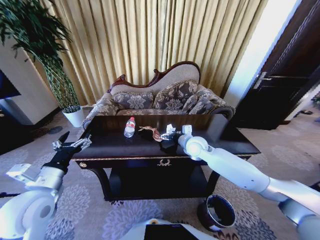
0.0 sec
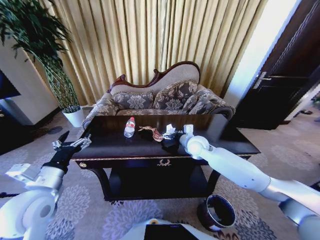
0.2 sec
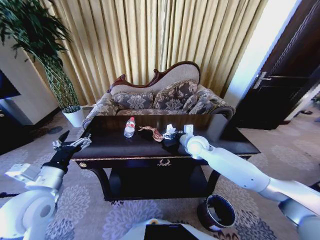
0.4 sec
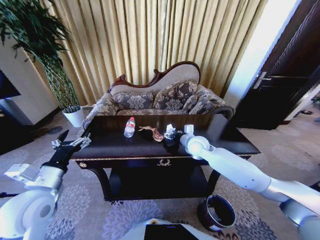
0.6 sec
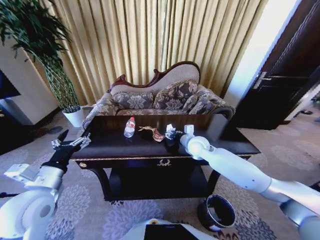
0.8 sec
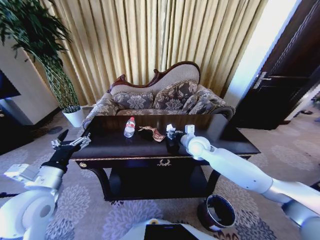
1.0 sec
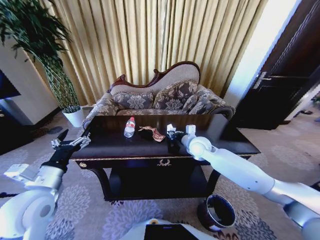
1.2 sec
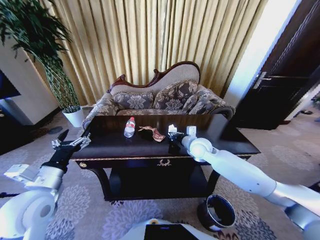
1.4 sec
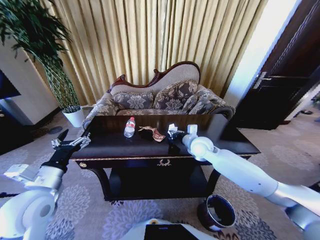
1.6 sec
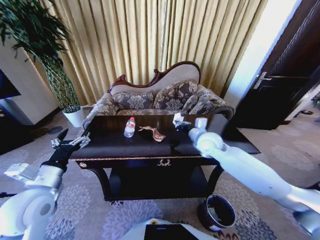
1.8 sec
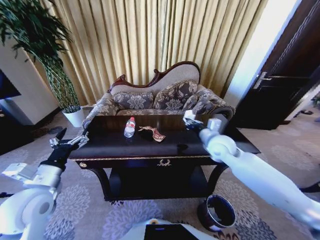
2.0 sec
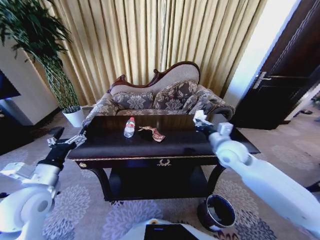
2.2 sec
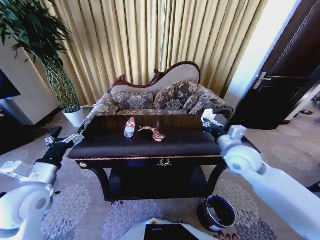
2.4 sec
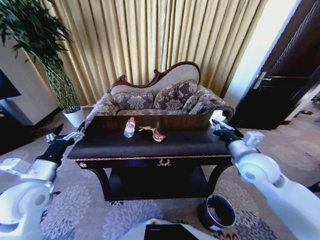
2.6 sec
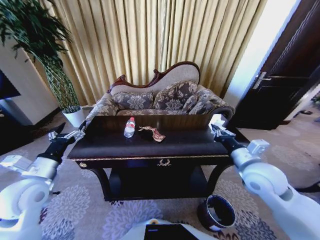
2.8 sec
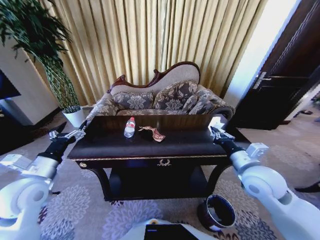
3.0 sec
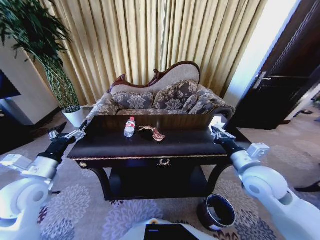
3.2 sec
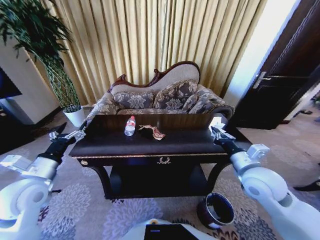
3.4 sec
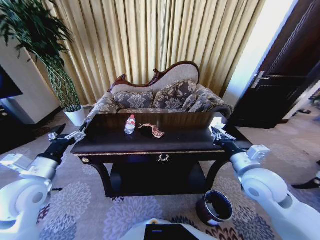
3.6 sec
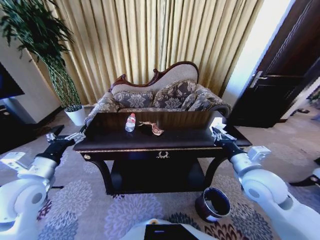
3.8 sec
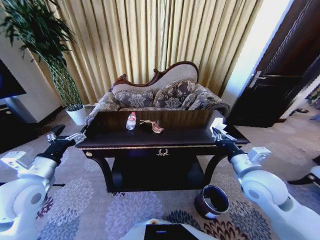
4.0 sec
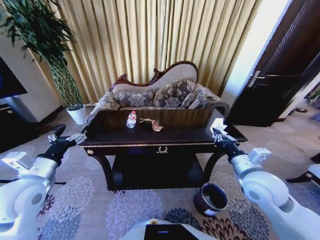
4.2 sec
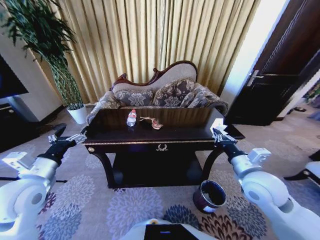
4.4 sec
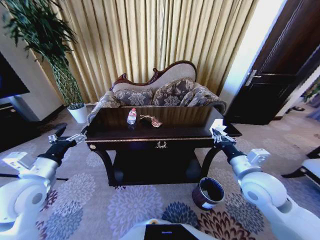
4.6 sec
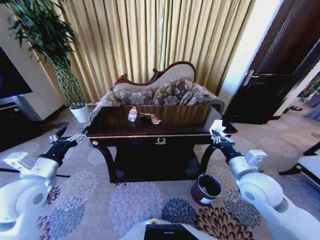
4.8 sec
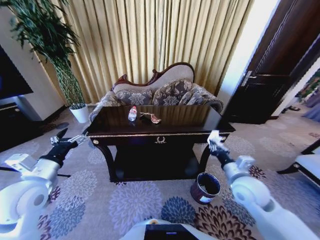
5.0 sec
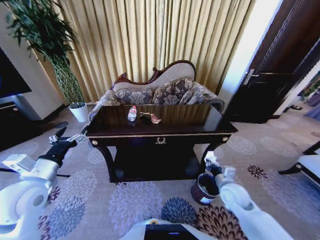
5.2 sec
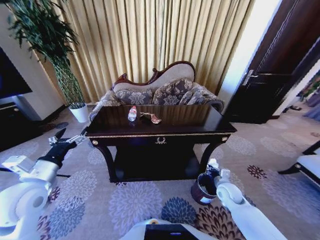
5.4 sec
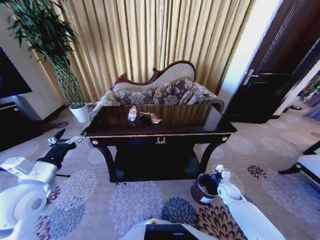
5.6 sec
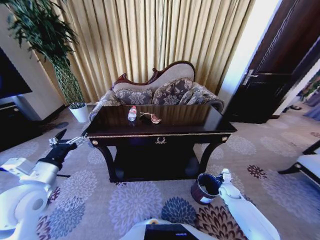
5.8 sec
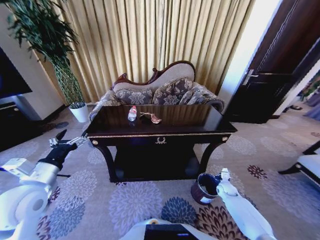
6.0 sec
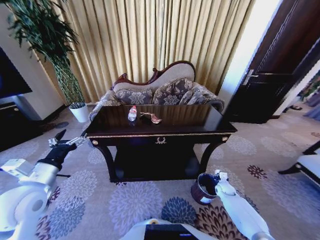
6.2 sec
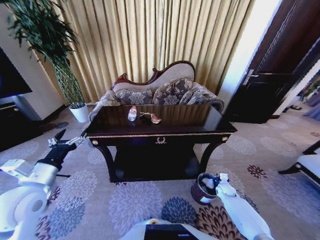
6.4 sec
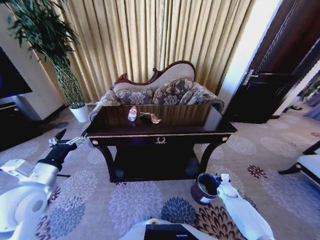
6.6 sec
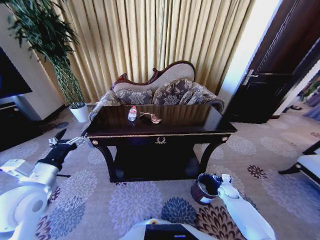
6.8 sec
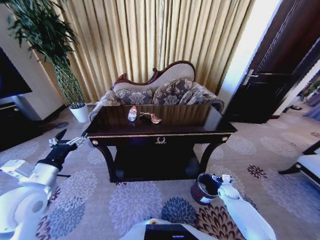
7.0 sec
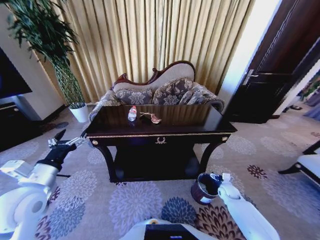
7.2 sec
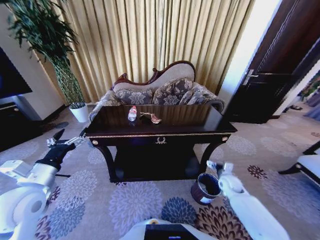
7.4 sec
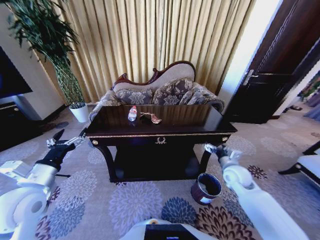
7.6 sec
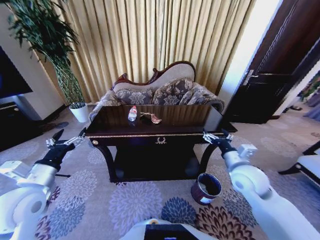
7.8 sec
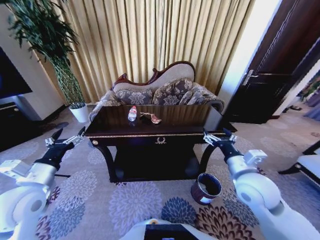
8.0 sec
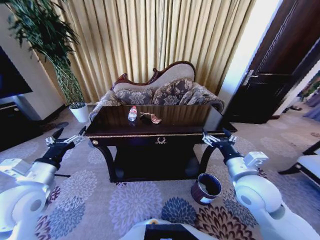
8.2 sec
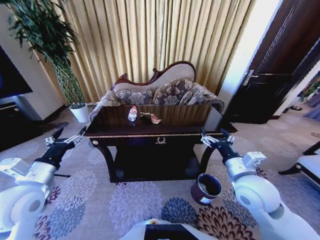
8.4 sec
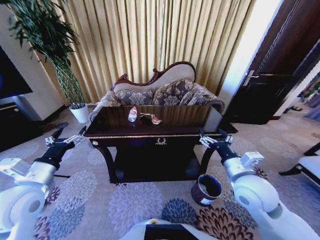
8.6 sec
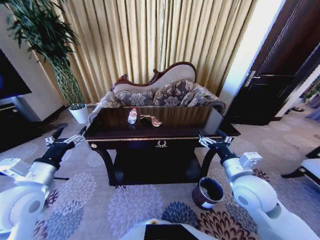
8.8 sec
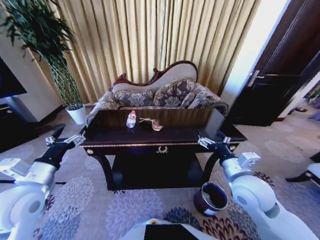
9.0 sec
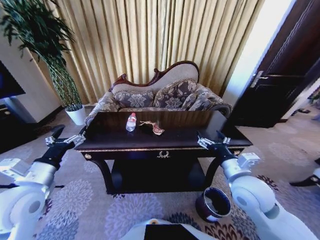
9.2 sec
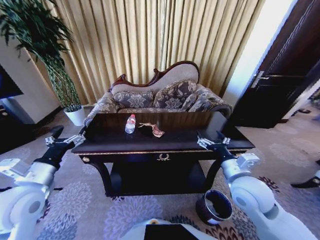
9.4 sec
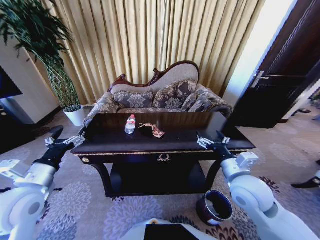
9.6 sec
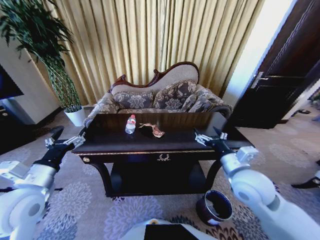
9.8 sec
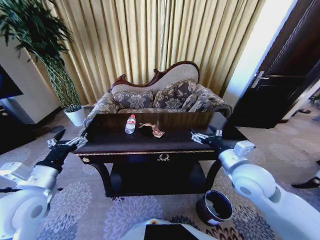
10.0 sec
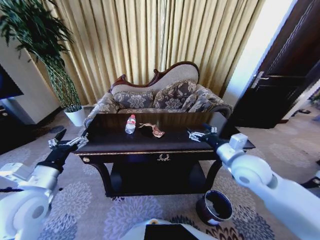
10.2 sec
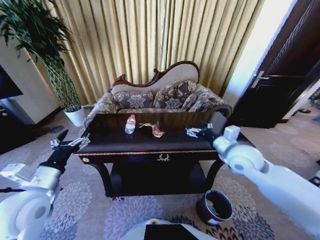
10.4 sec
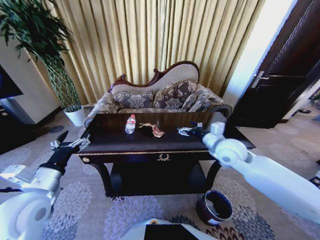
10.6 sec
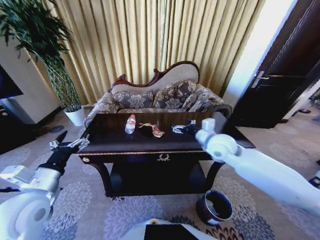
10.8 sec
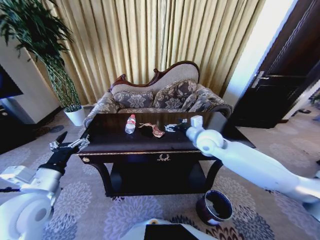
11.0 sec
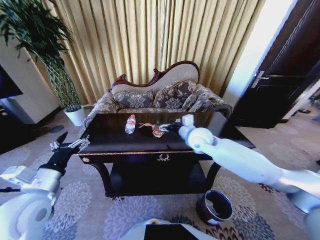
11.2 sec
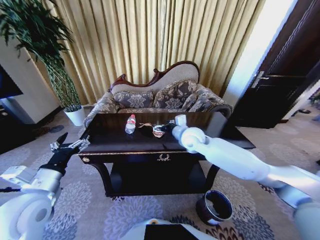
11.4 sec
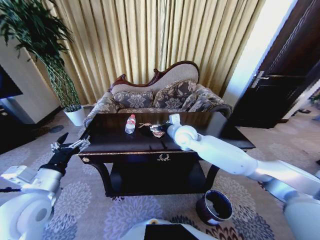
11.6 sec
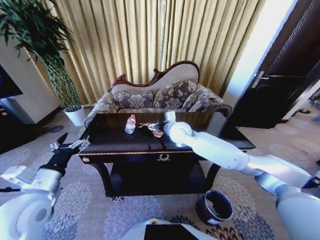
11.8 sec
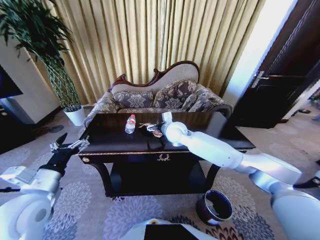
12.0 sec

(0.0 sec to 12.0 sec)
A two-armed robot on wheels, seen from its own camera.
Task of the whole recording: Move to the front of the table and place the trash on the table into the trash bin.
0.0 sec - 1.6 sec: The right gripper closes its fingers.
1.6 sec - 3.0 sec: The left gripper changes place by roughly 5 cm; the right gripper goes approximately 20 cm backward and to the right.
4.4 sec - 6.0 sec: The right gripper travels downward by some 35 cm.
6.0 sec - 7.6 sec: The right gripper heads upward, covering about 25 cm, and opens its fingers.
7.6 sec - 9.0 sec: The right gripper moves backward, upward and to the left, approximately 15 cm.
9.0 sec - 10.4 sec: The right gripper is displaced forward by roughly 10 cm.
10.4 sec - 12.0 sec: The right gripper travels to the left and forward by approximately 25 cm.

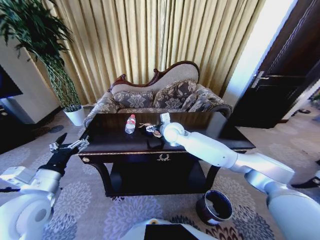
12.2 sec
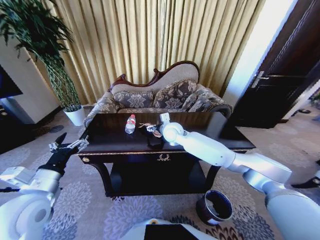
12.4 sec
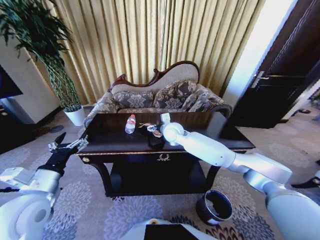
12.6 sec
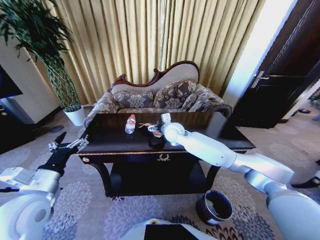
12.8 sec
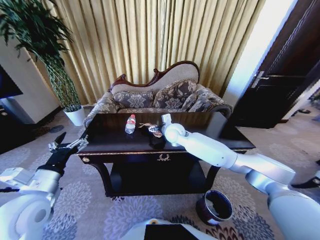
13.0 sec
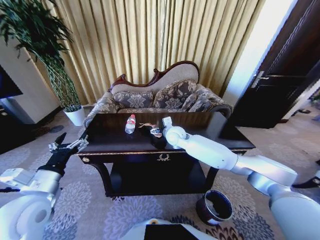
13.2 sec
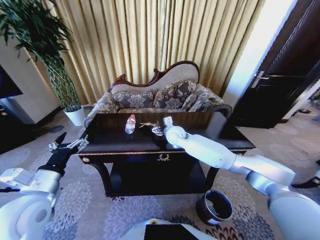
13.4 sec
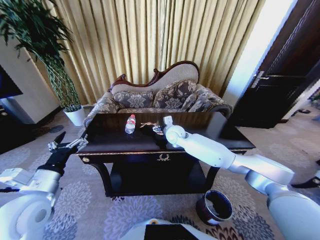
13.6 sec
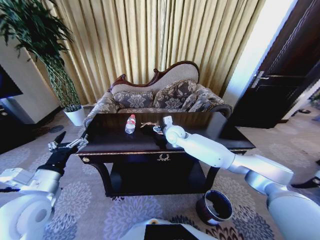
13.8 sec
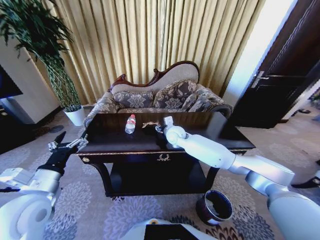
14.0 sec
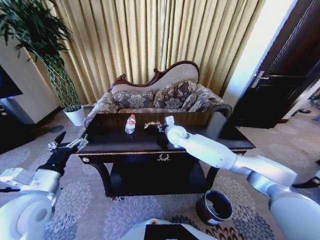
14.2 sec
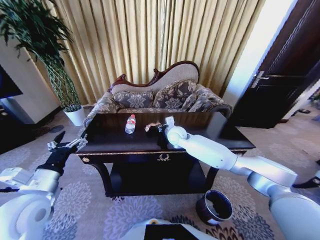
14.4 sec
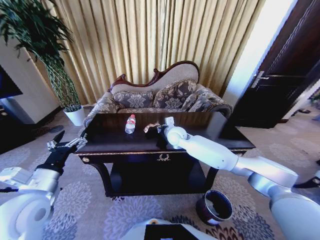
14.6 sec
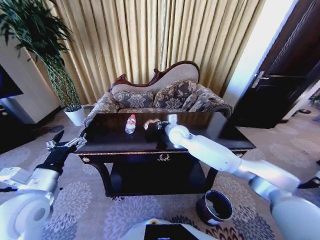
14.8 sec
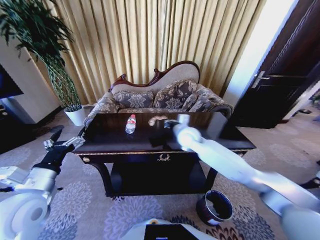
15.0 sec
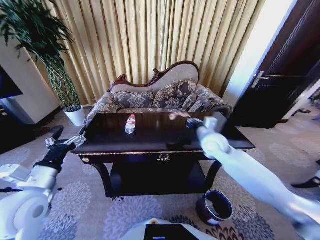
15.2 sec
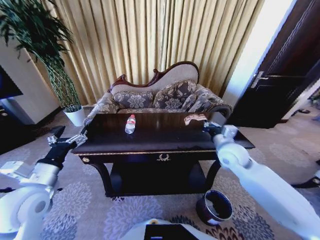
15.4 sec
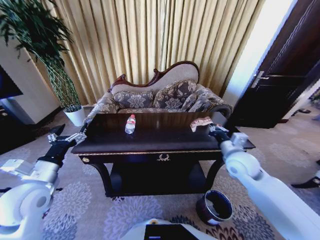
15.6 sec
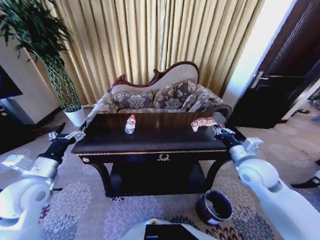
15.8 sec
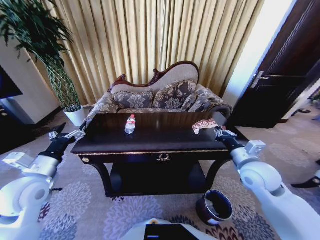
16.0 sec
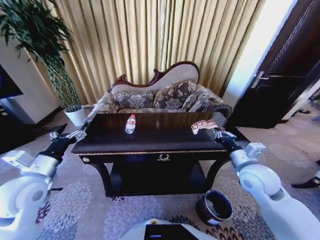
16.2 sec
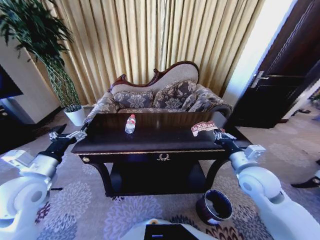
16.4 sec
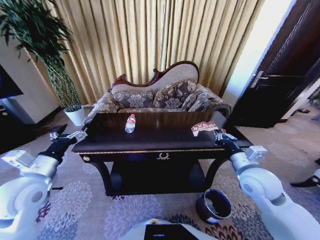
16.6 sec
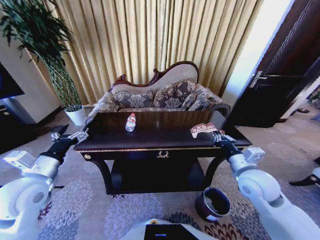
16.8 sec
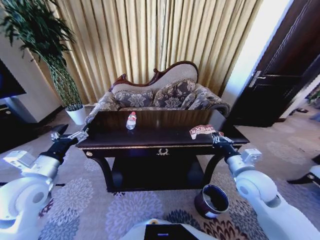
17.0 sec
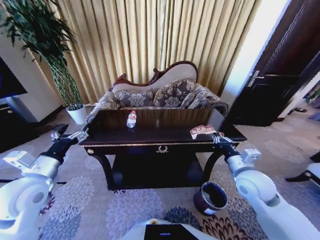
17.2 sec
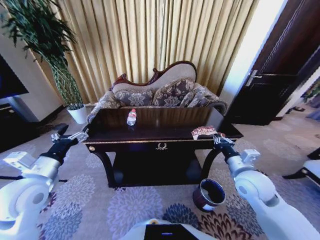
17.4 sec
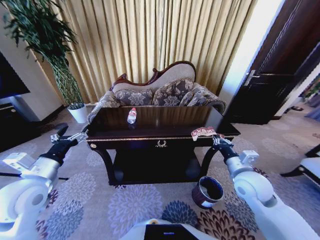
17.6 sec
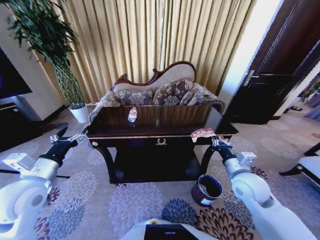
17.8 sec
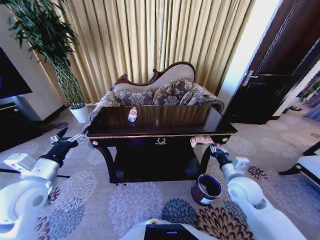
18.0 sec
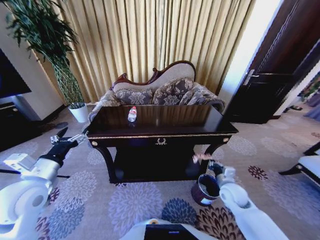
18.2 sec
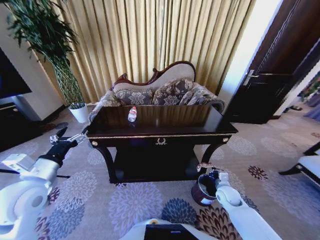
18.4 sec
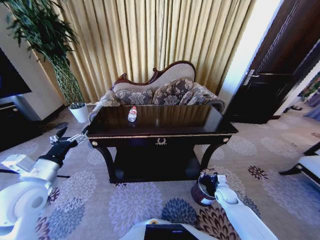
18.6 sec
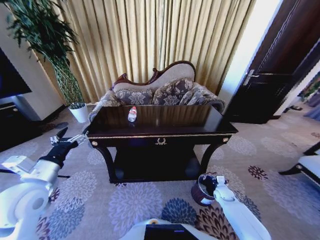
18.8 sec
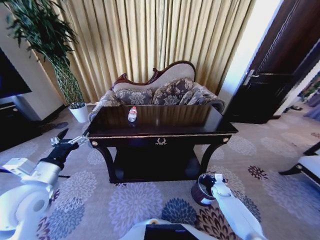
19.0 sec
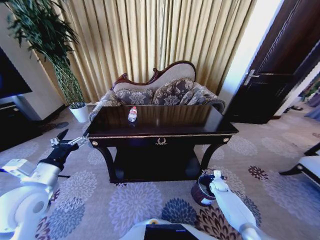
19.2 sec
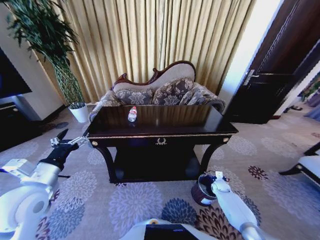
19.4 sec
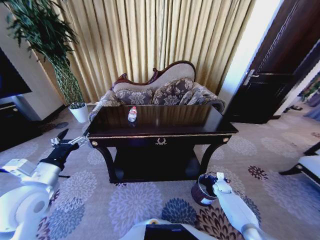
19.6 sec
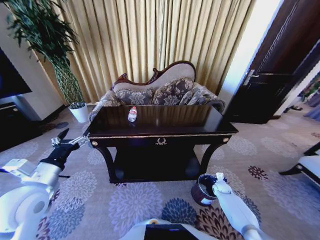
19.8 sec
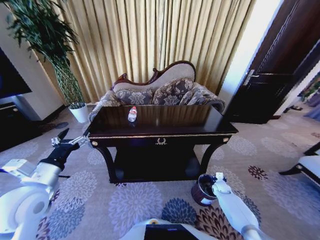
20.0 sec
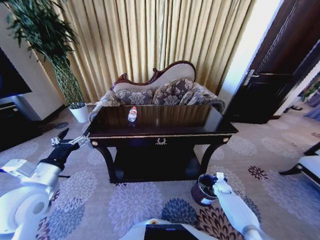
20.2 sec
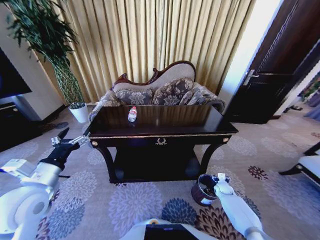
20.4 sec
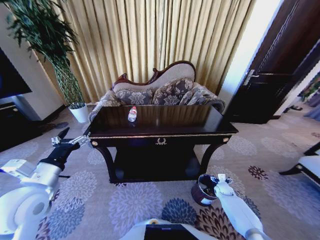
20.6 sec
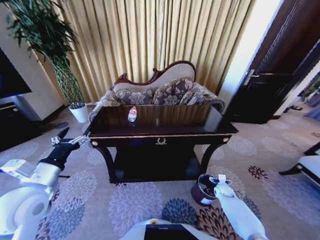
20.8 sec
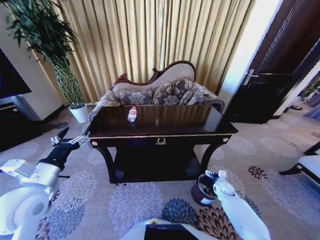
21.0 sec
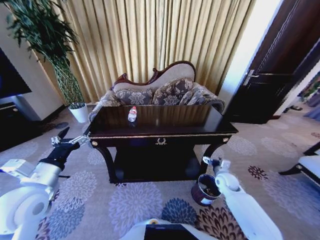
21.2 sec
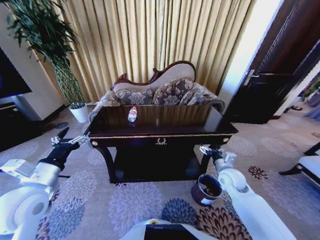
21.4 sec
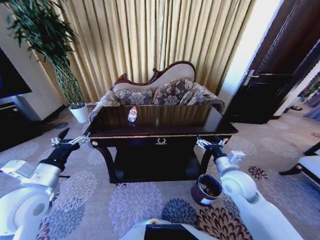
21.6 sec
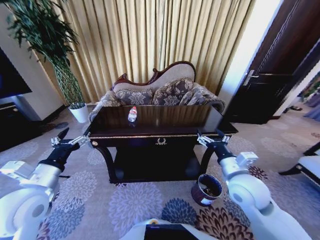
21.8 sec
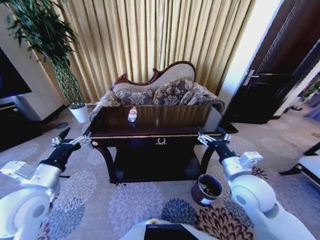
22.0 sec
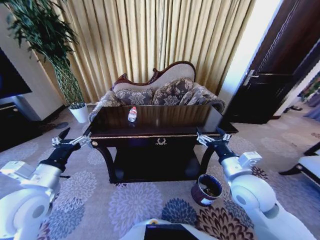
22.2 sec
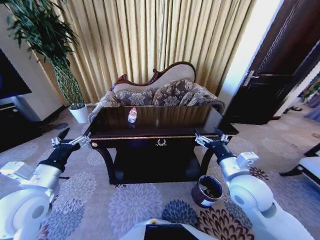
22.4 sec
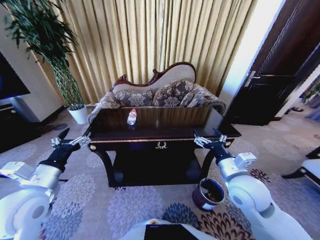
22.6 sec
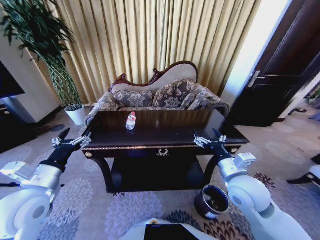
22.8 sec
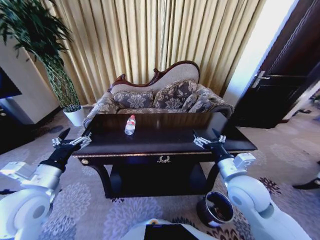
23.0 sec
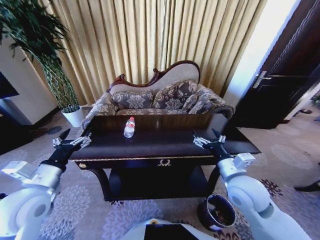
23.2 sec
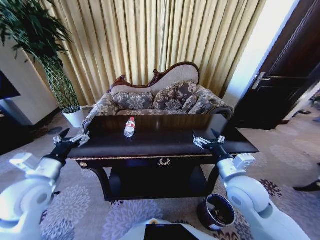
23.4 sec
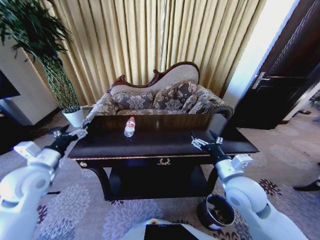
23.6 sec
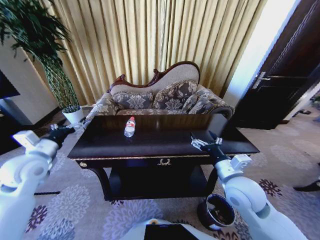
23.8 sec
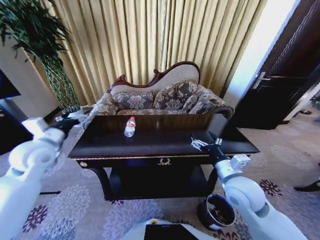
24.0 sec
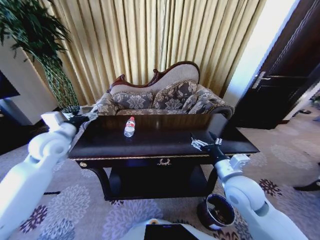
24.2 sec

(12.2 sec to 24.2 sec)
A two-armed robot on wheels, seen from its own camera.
Task of the whole recording: Move to the front of the table and place the trash on the table into the trash bin.
12.2 sec - 13.8 sec: The right gripper ends up some 5 cm from where it was.
13.8 sec - 15.2 sec: The right gripper shifts roughly 20 cm to the right and backward, and closes up.
15.2 sec - 16.6 sec: The right gripper moves backward and to the right, some 15 cm.
16.6 sec - 18.2 sec: The right gripper heads downward, covering approximately 15 cm.
18.2 sec - 19.8 sec: The right gripper goes some 20 cm downward and to the right.
19.8 sec - 21.2 sec: The right gripper goes about 15 cm upward, and opens its fingers.
21.2 sec - 22.6 sec: The right gripper heads upward, backward and to the left, covering roughly 25 cm.
22.6 sec - 24.2 sec: The left gripper is displaced forward by about 15 cm.
